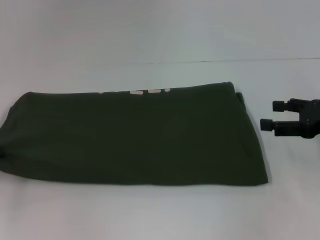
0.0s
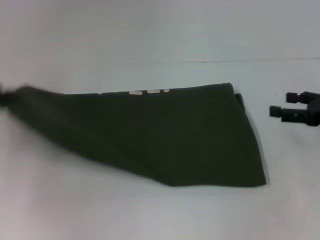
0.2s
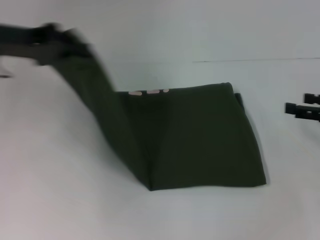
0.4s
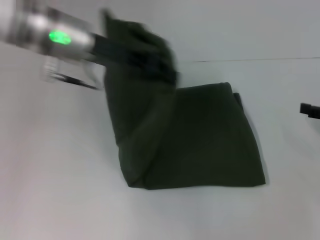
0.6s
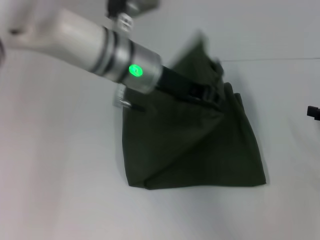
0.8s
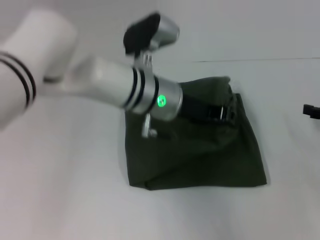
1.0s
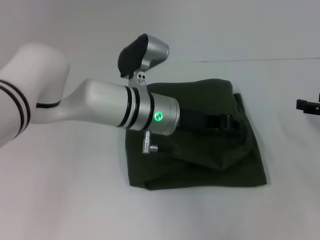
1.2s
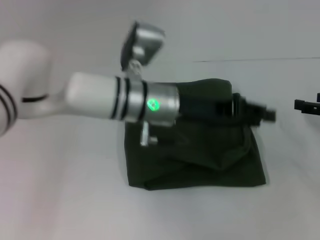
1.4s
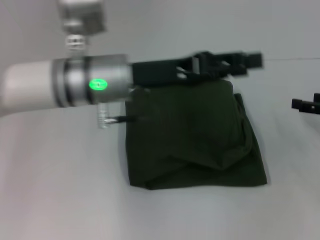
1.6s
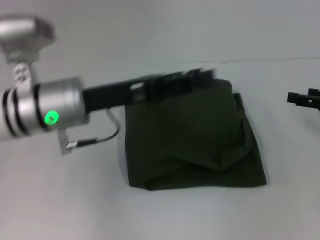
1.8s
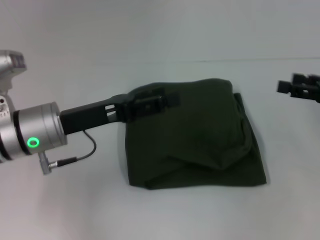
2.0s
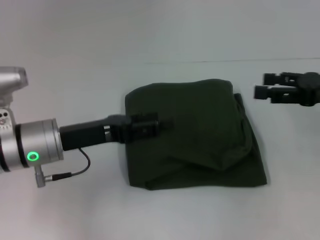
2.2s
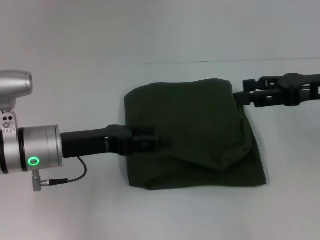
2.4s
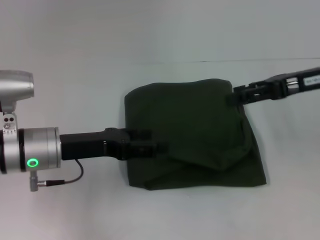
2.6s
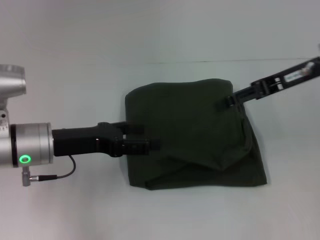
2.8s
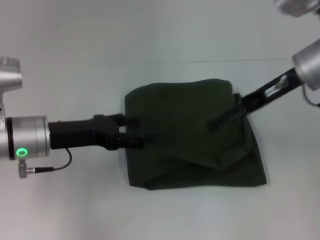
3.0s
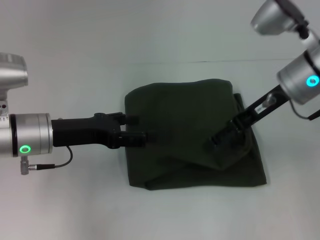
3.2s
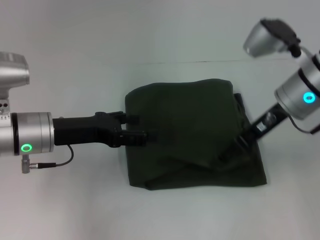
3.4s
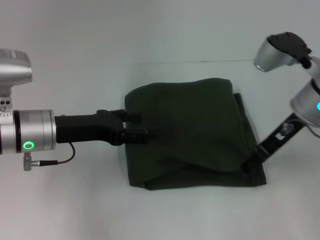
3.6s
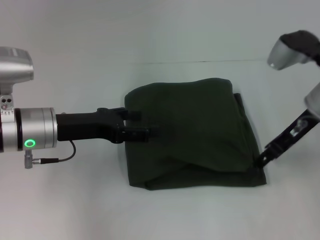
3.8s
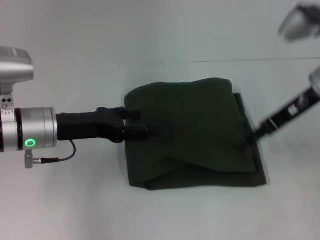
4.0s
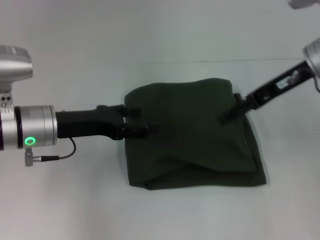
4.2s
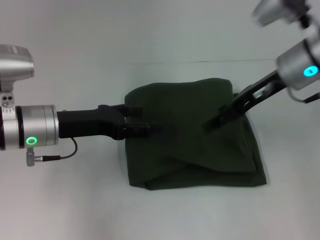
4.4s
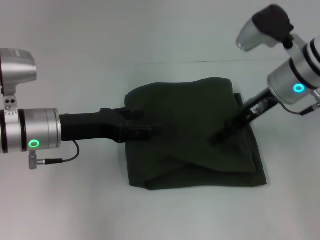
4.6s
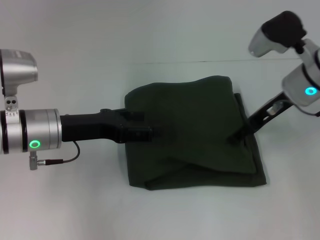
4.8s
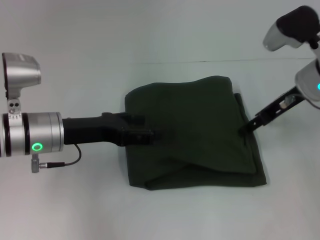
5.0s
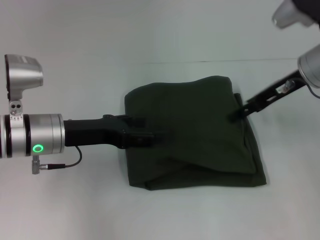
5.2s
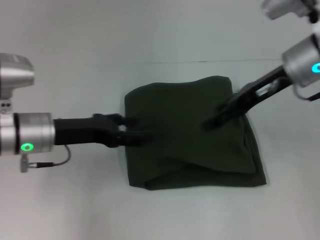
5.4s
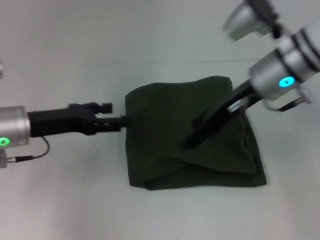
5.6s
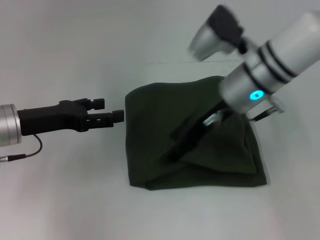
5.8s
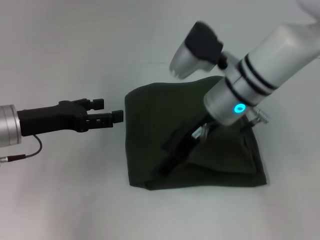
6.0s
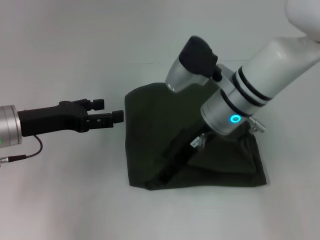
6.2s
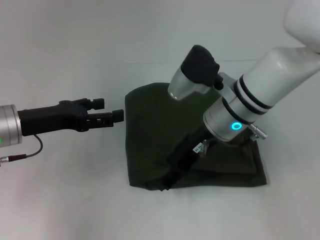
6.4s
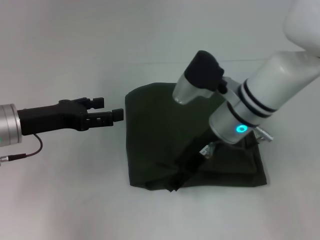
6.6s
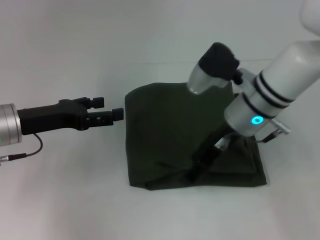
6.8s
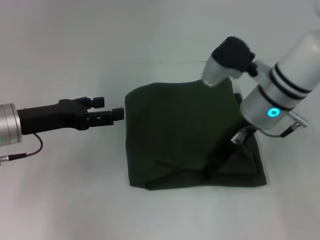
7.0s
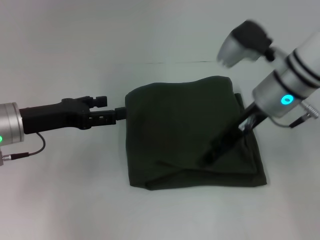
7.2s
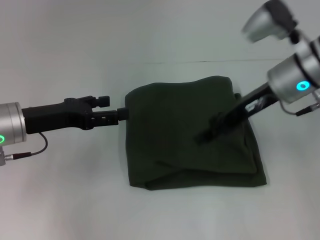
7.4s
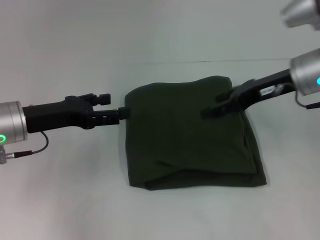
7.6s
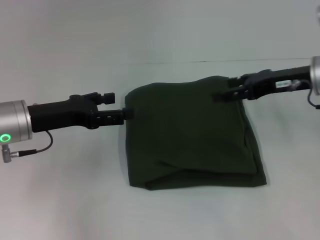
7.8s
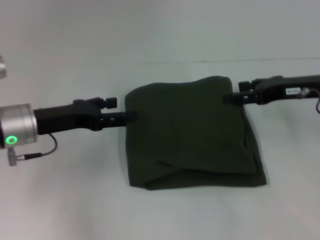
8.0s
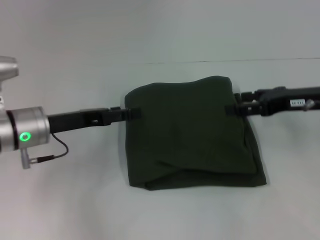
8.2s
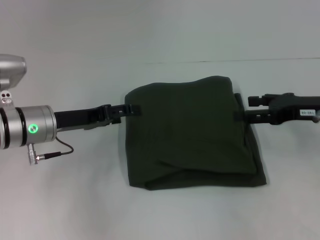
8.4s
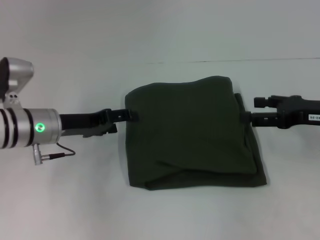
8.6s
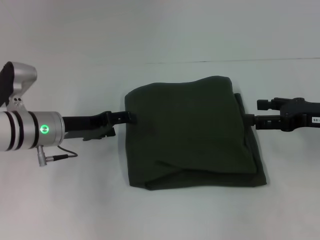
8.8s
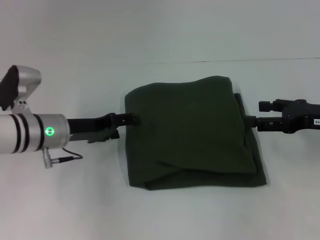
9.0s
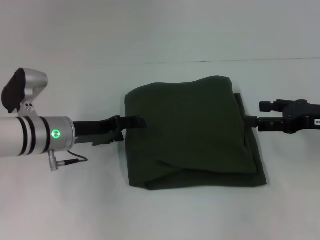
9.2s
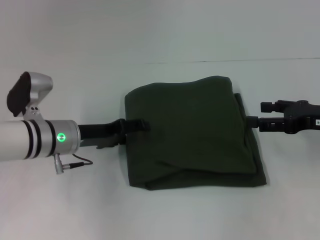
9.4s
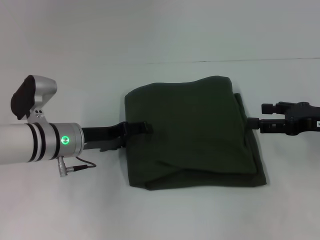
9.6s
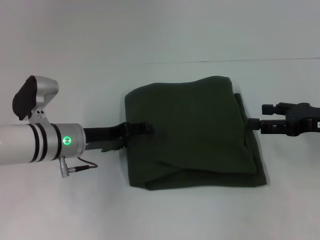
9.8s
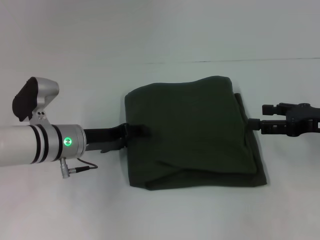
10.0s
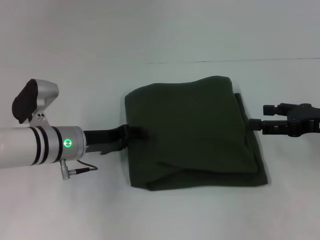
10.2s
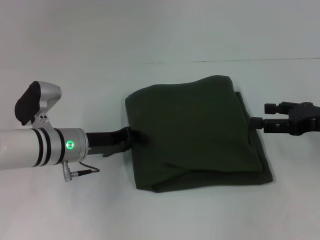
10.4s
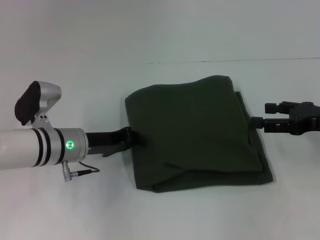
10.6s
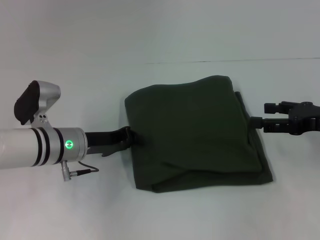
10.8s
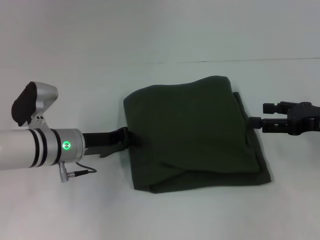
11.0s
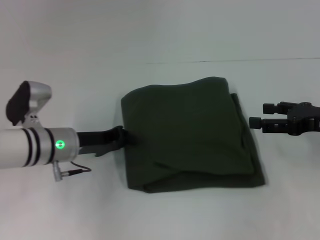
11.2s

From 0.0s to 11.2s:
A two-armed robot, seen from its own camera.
From 0.0s to 1.6s: The left gripper shifts approximately 30 cm to the right.
From 1.6s to 3.2s: The right gripper moves to the left and upward, about 20 cm, while the left gripper is displaced to the left and downward by approximately 10 cm, and opens its fingers.
From 3.2s to 4.8s: There are only small adjustments of the grippers.
From 4.8s to 6.4s: The left gripper shifts approximately 5 cm to the left; the right gripper heads to the left, covering approximately 10 cm.
From 6.4s to 8.0s: The right gripper heads to the right, covering approximately 20 cm.
From 8.0s to 9.6s: The left gripper heads to the right and downward, covering some 5 cm. The right gripper moves roughly 5 cm.
From 9.6s to 11.2s: The left gripper closes its fingers.

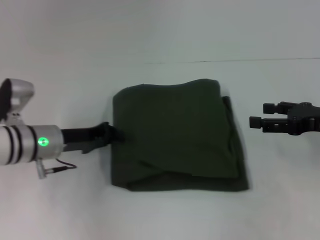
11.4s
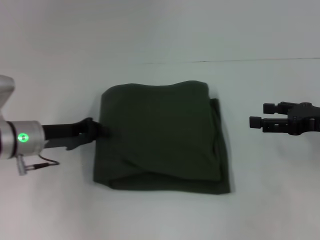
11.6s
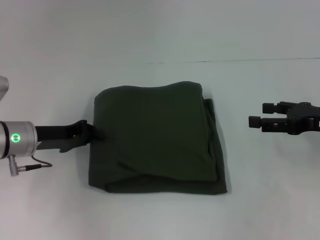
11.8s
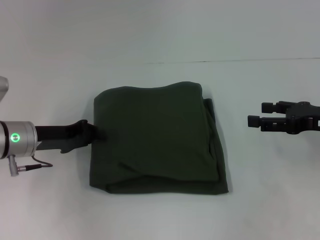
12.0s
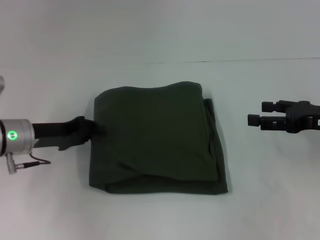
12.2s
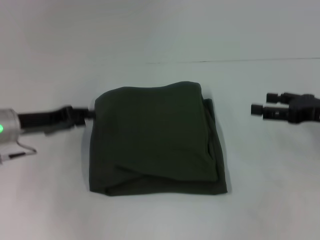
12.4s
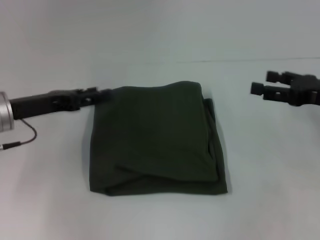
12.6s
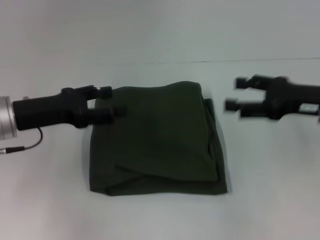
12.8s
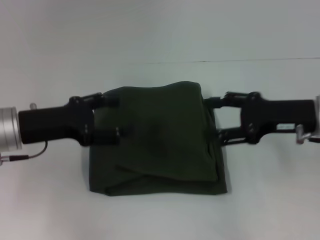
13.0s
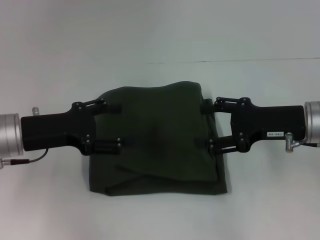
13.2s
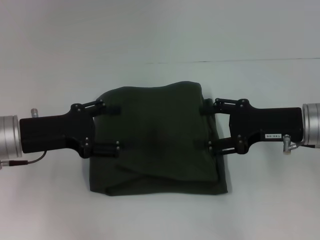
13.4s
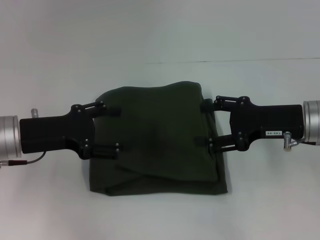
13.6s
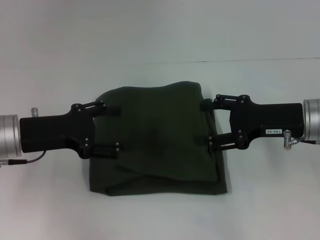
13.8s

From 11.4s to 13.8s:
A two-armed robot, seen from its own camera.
From 11.4s to 12.6s: The left gripper is displaced upward and to the left by roughly 10 cm, and opens up.
From 12.6s to 13.8s: The left gripper opens; the right gripper heads to the left, covering approximately 10 cm.
